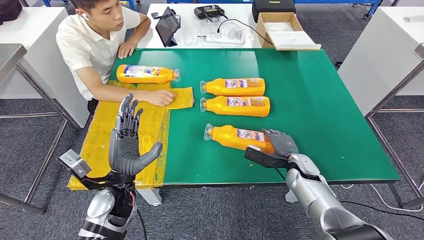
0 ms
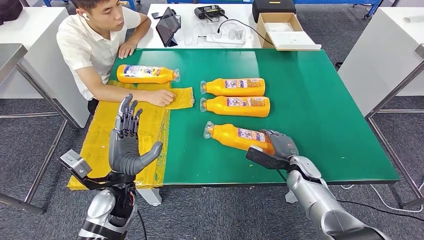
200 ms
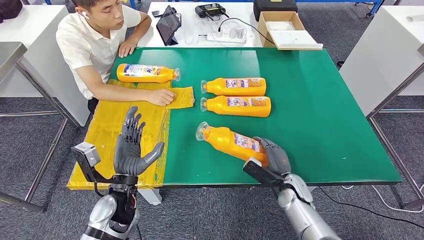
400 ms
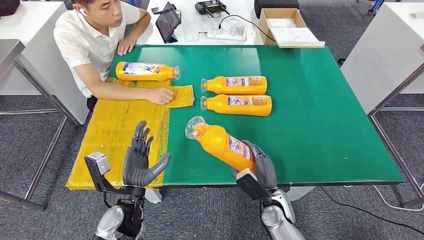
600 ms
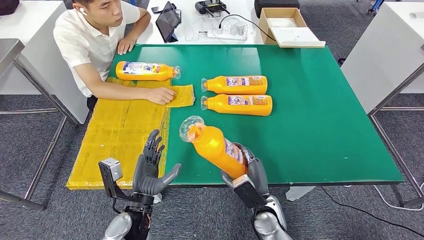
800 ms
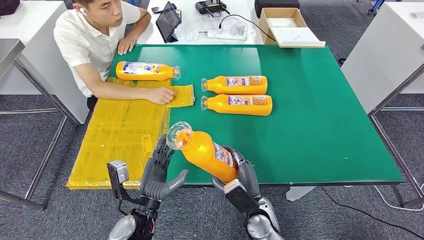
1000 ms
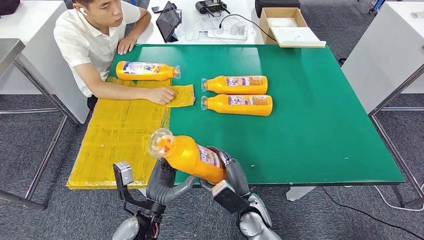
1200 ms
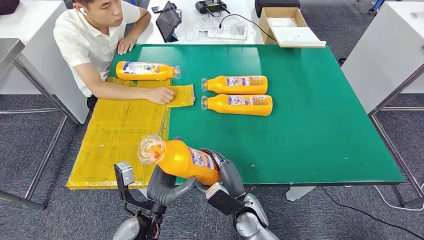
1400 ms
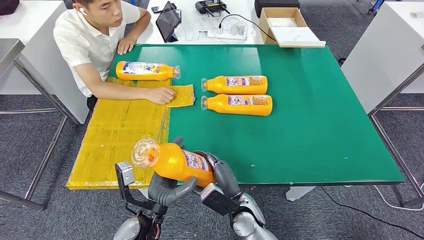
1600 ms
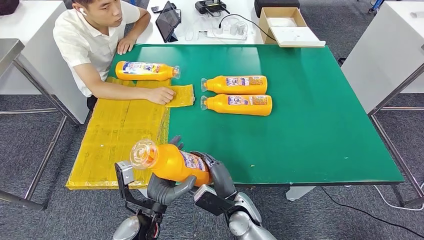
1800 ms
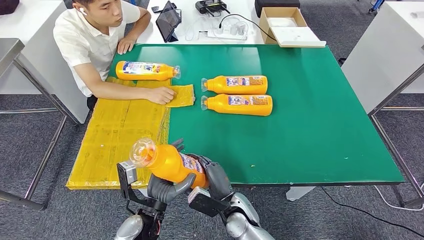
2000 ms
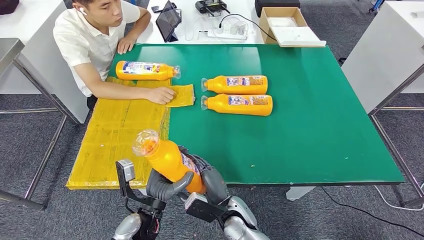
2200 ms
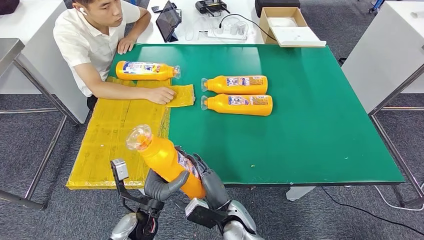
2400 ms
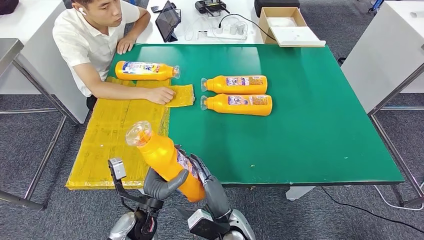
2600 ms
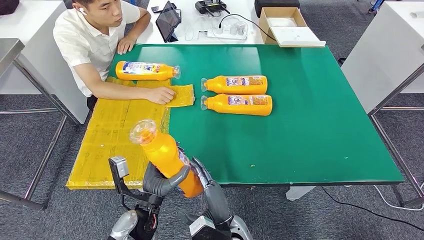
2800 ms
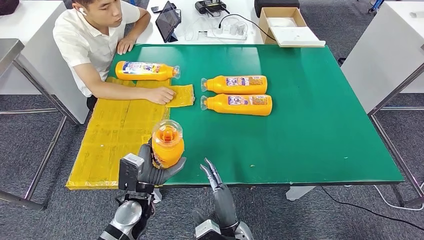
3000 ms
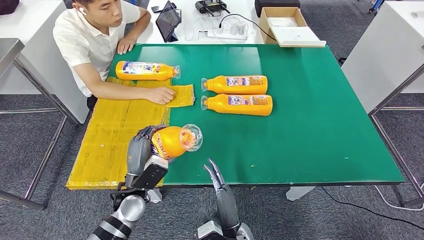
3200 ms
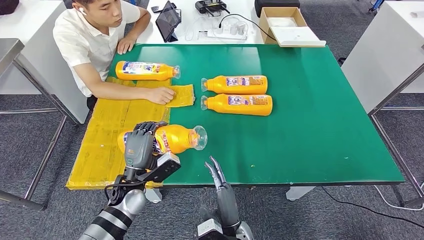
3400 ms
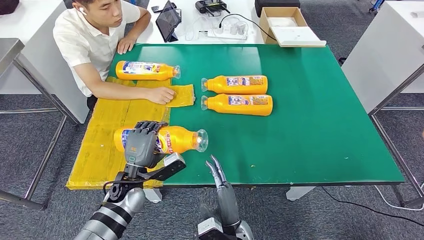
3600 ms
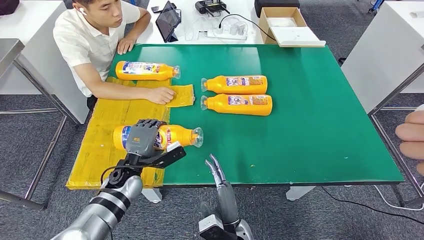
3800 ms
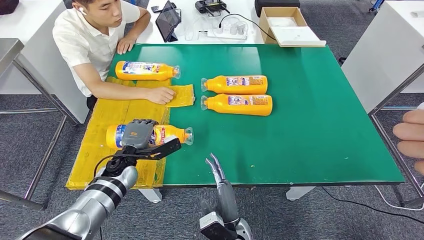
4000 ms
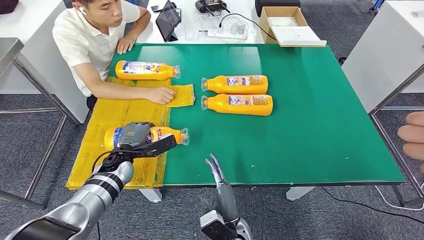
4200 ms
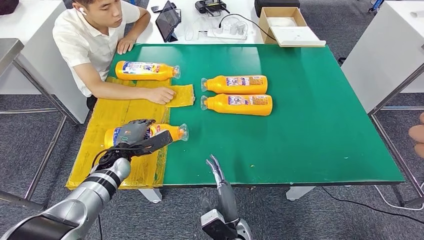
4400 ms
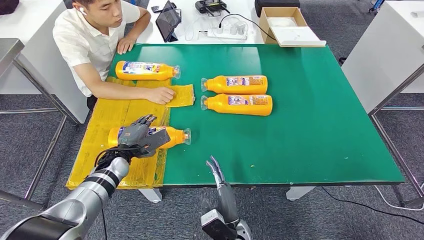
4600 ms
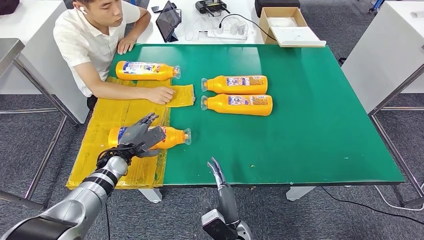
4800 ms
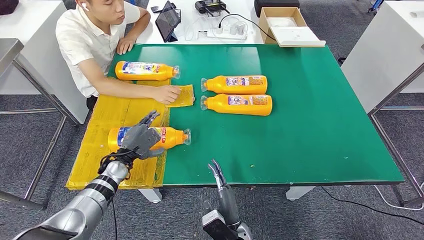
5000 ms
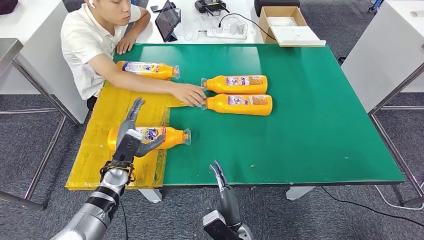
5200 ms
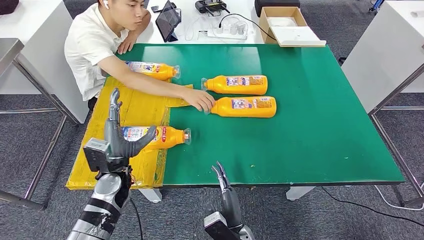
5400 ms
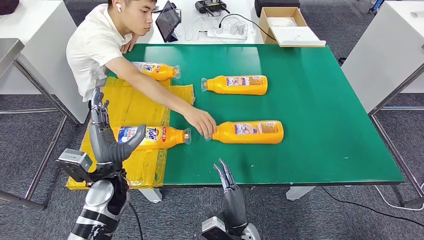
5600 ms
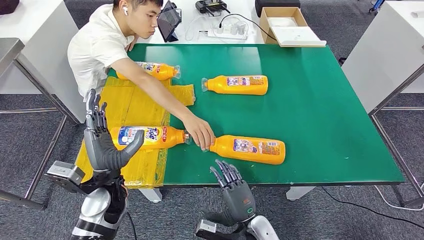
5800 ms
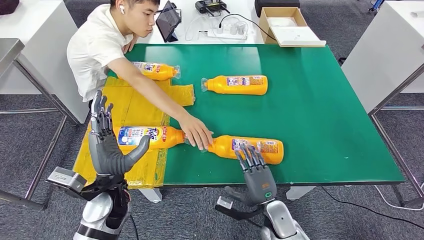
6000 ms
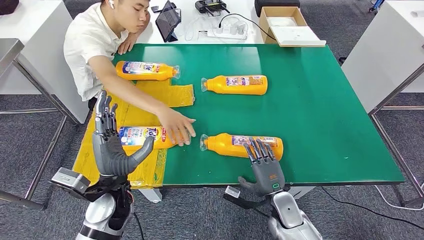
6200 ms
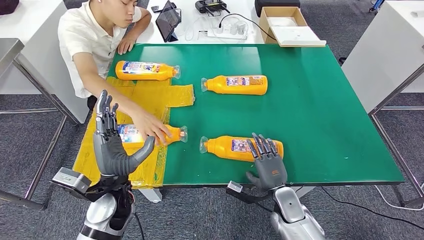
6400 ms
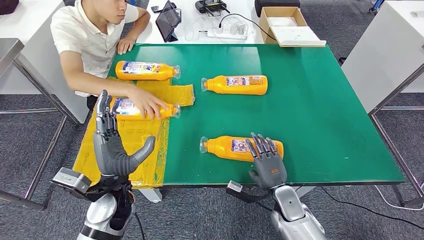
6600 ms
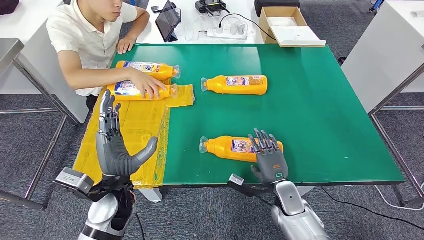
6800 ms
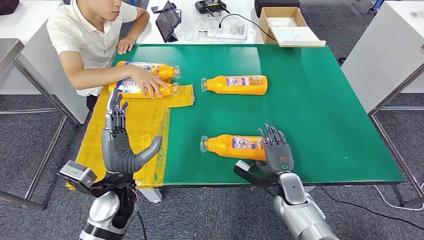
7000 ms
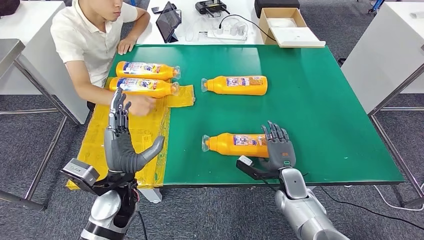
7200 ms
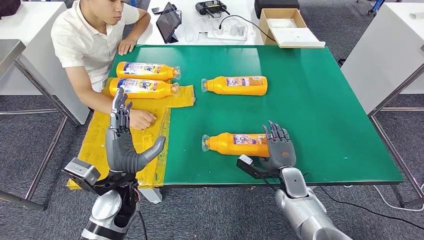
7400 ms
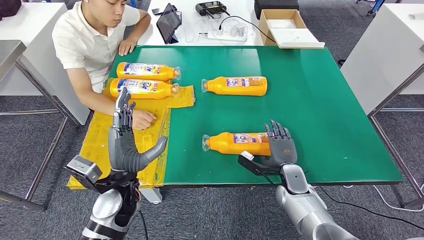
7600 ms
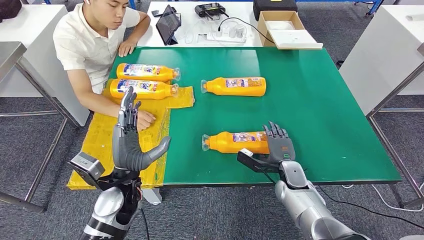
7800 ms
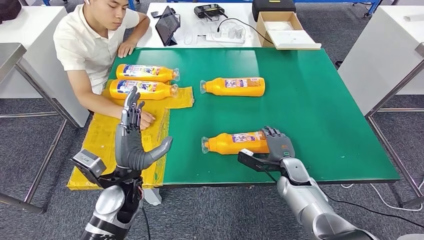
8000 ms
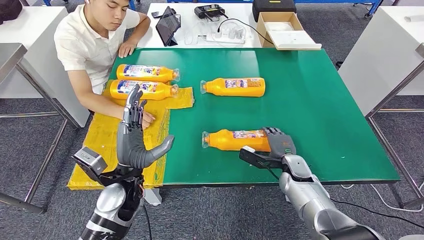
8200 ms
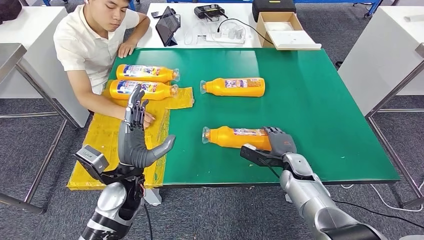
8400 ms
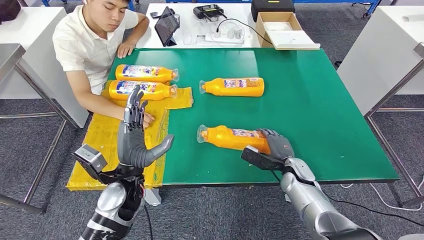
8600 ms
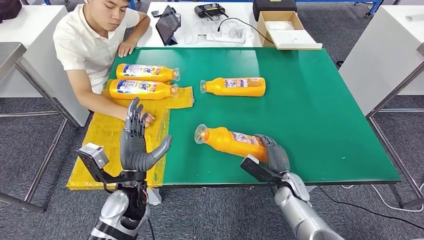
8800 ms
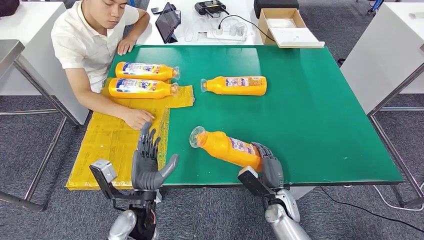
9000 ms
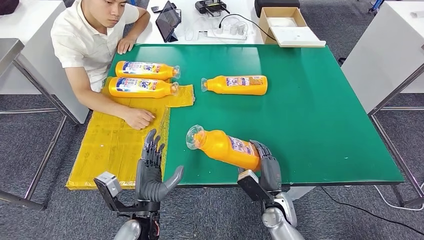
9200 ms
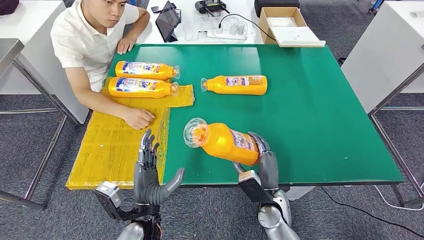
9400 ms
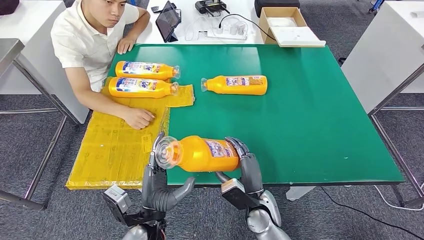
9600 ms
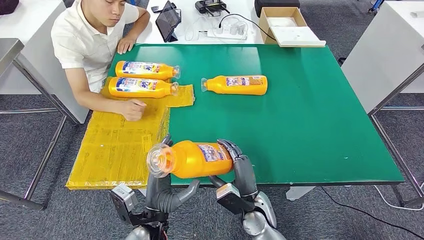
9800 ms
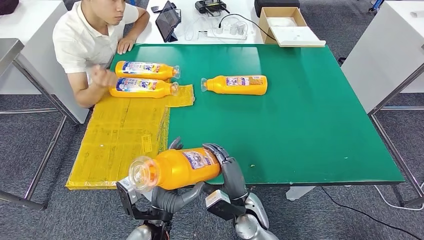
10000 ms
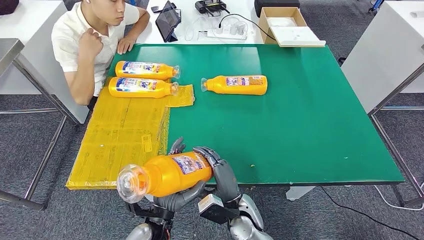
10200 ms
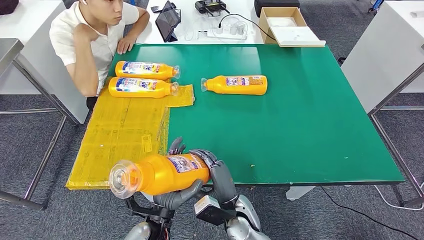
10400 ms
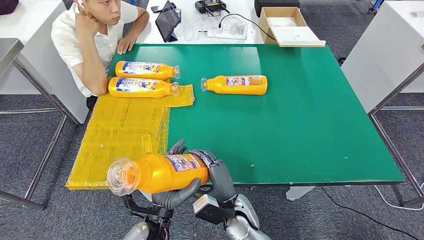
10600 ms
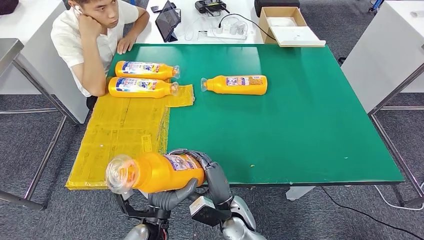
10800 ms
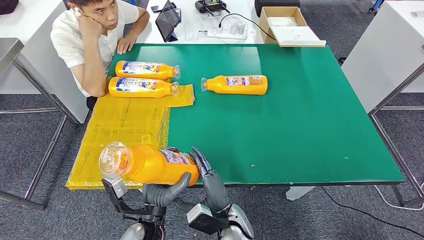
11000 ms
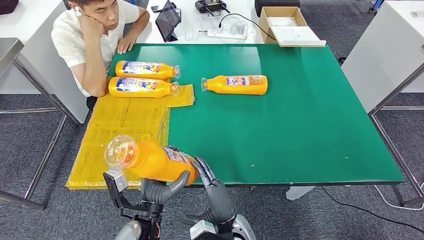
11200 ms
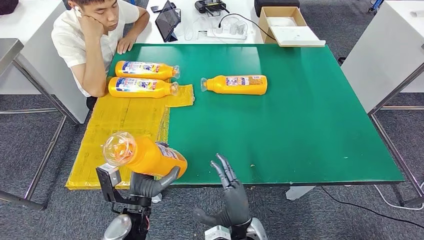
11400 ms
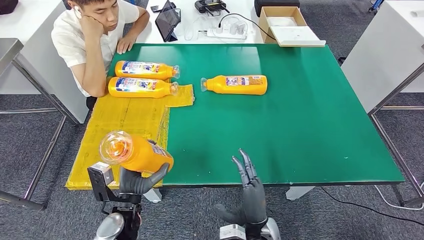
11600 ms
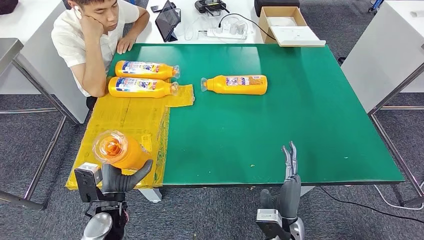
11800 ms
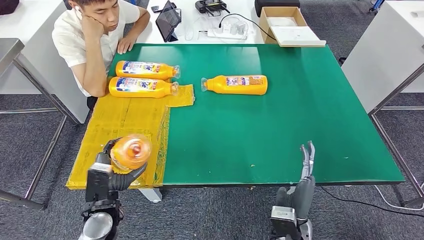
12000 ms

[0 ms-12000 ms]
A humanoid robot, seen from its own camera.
Step, 1600 ms to 5200 ms: Flip the fast-moving consumer goods bottle to the front side.
Step, 5400 ms to 10400 ms: Pick up the fast-moving consumer goods bottle from the table.
1600 ms to 3000 ms: The left hand shifts by about 5 cm, while the right hand moves backward, about 5 cm.
3000 ms to 4400 ms: The left hand is displaced forward and to the left by roughly 15 cm.
7600 ms to 9000 ms: The left hand moves approximately 5 cm. Meanwhile the right hand heads backward, covering approximately 5 cm.
9000 ms to 10400 ms: The right hand goes approximately 15 cm to the left. The left hand moves roughly 5 cm.
10400 ms to 12000 ms: The right hand shifts approximately 10 cm to the right; the left hand shifts approximately 15 cm to the left.

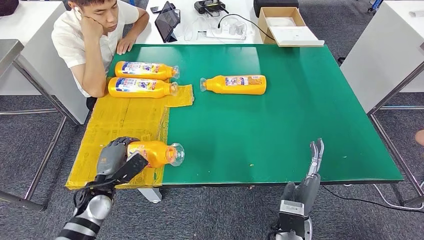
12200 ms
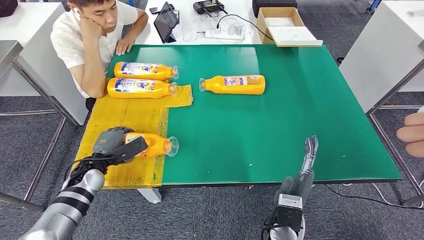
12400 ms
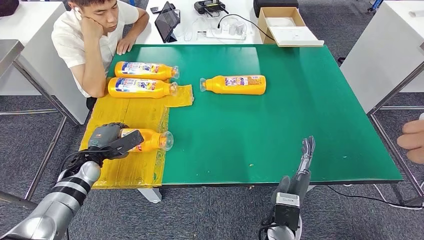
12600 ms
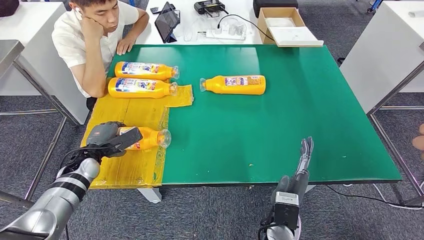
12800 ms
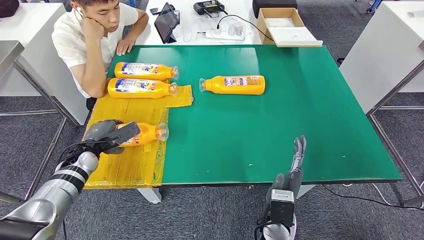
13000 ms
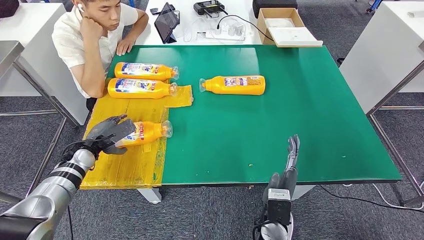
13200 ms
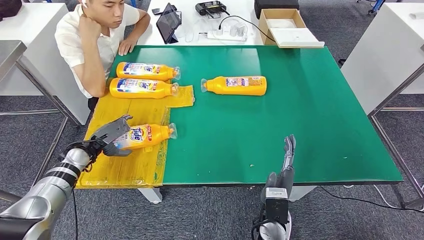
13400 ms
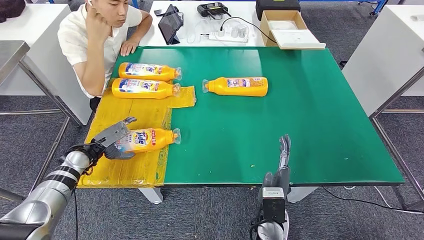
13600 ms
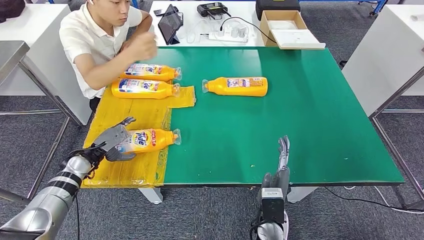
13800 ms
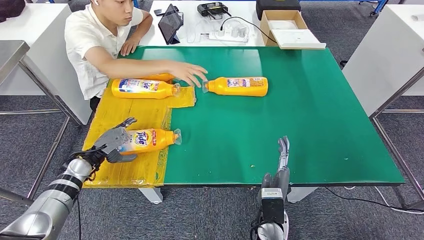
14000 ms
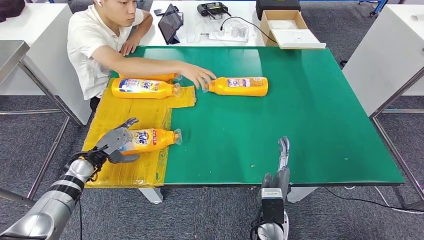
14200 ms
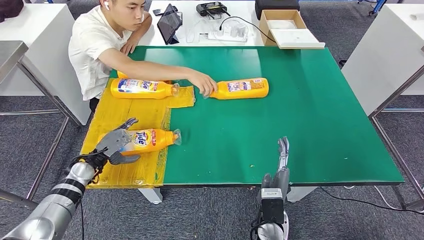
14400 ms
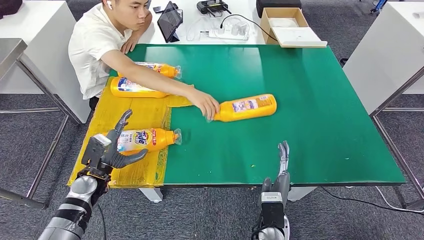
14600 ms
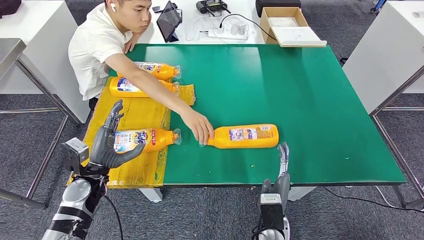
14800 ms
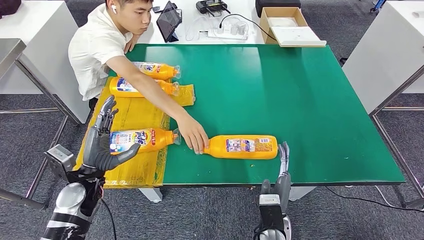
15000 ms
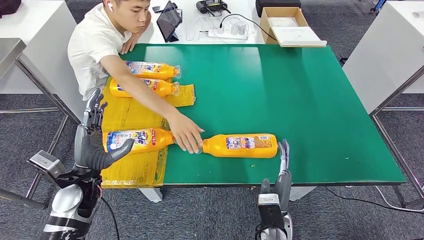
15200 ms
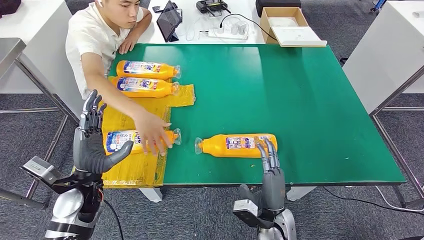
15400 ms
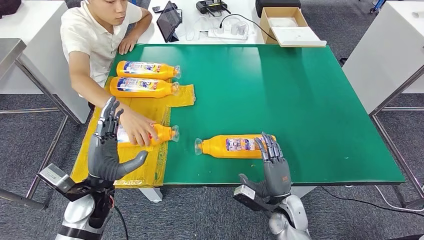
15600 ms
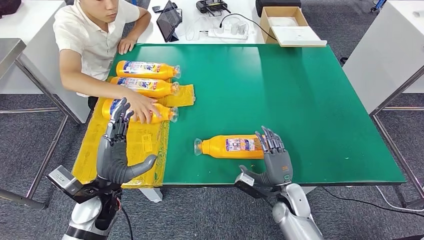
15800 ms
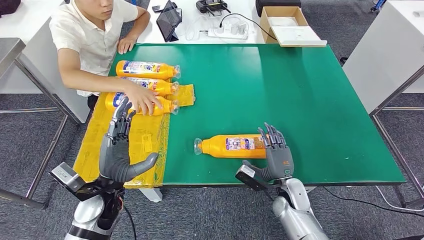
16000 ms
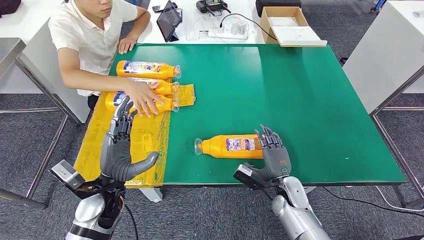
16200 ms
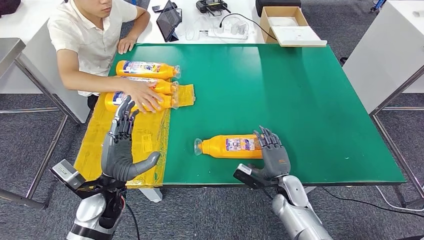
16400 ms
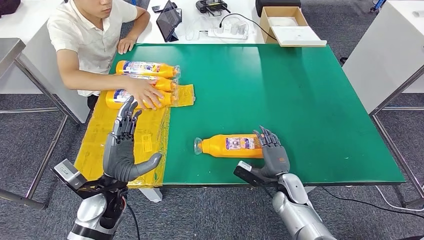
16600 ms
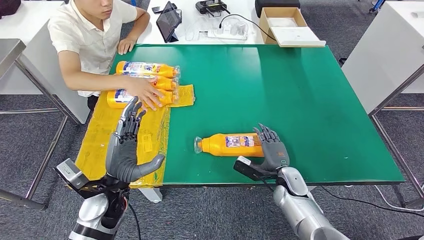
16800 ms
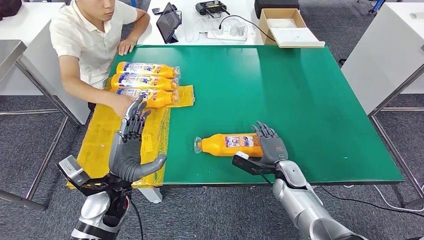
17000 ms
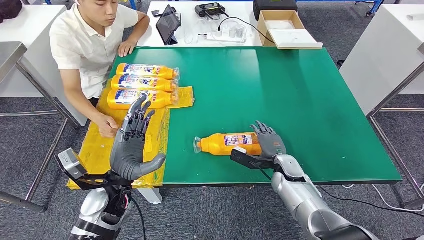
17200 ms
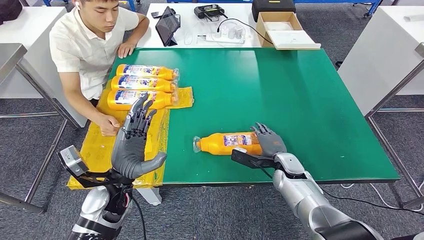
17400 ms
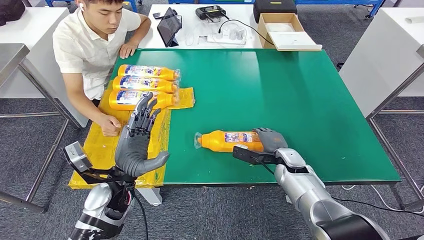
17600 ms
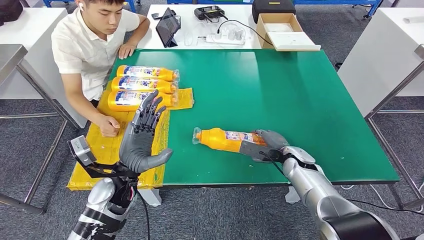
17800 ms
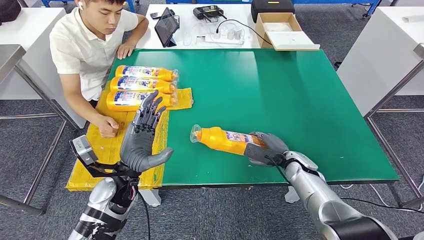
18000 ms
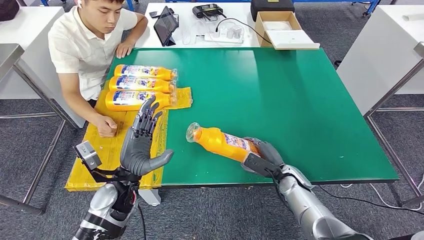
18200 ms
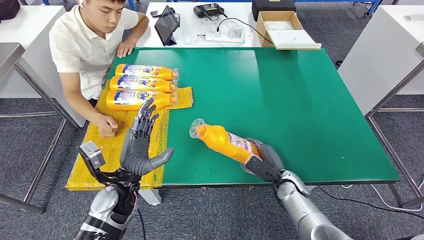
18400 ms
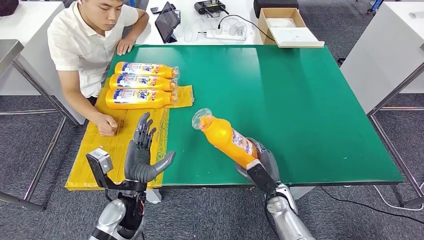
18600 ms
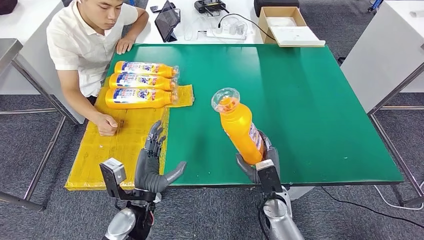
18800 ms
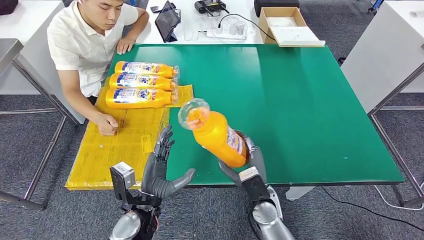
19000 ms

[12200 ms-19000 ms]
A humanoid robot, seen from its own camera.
Step, 12200 ms to 13800 ms: Flip the fast-moving consumer goods bottle to the front side.
